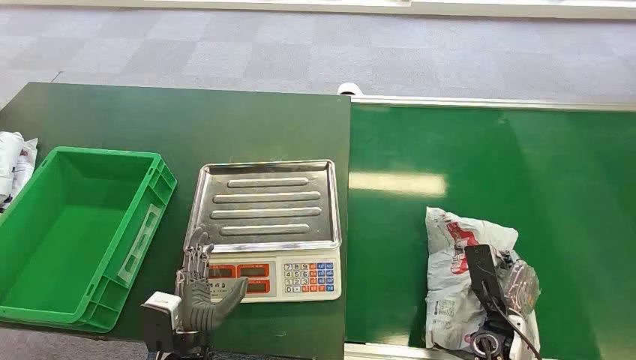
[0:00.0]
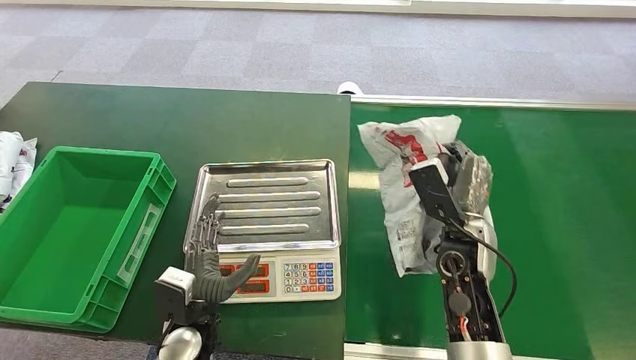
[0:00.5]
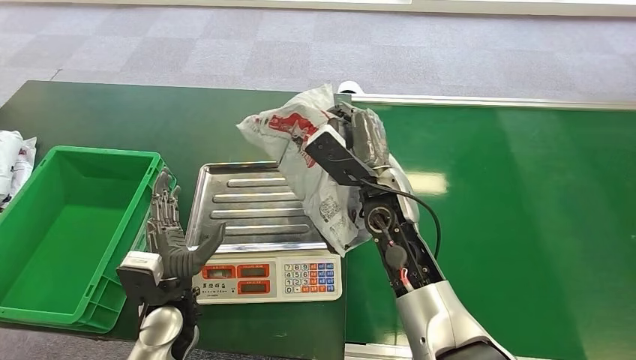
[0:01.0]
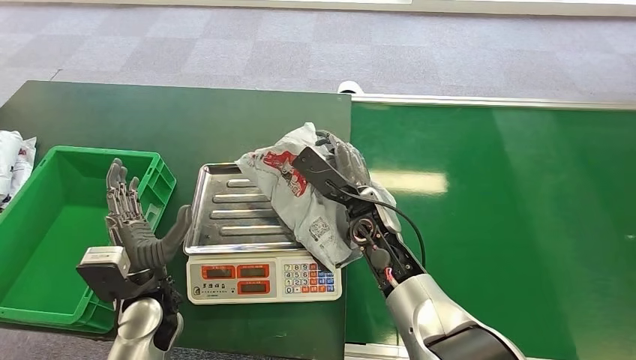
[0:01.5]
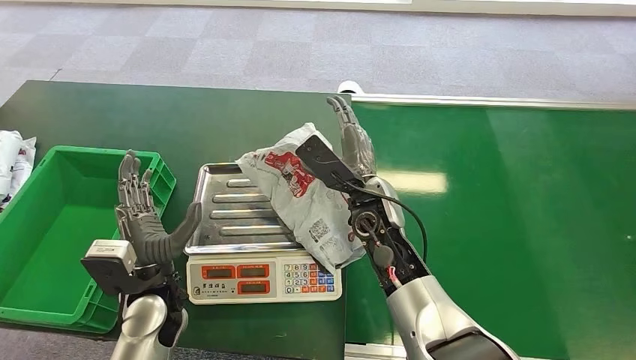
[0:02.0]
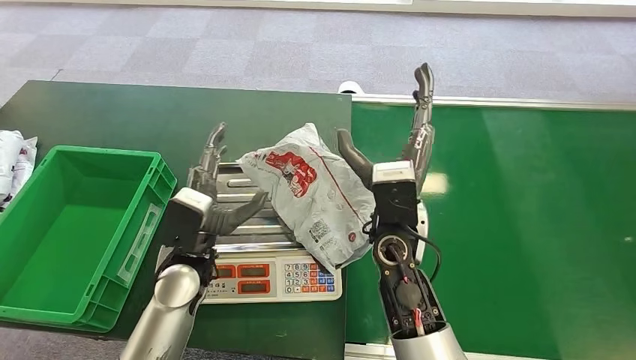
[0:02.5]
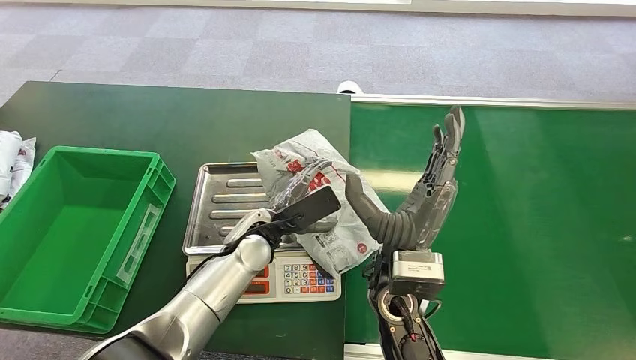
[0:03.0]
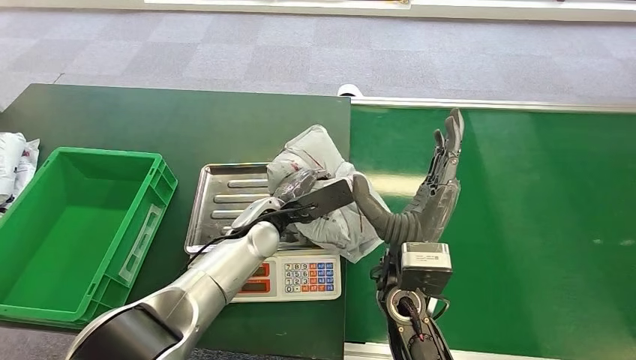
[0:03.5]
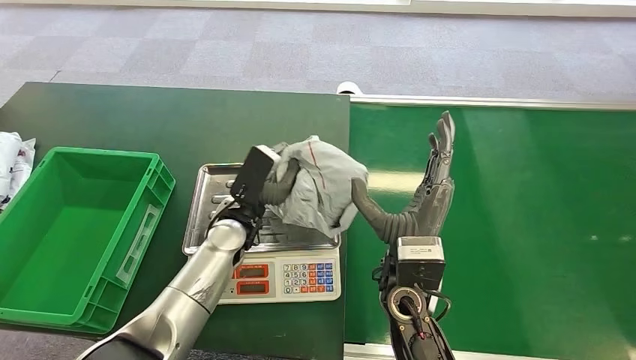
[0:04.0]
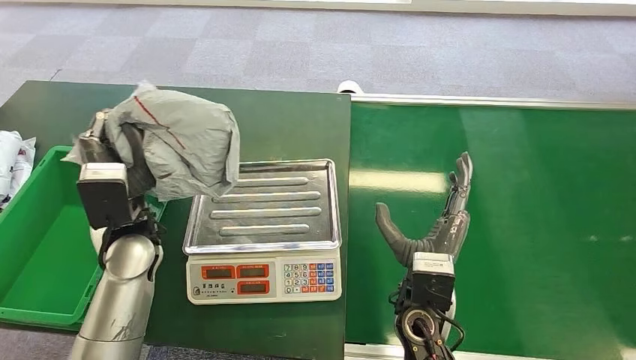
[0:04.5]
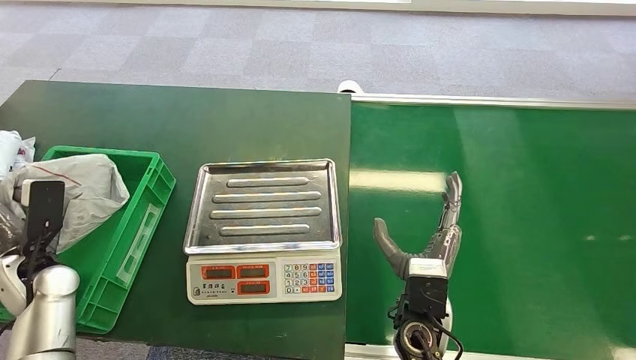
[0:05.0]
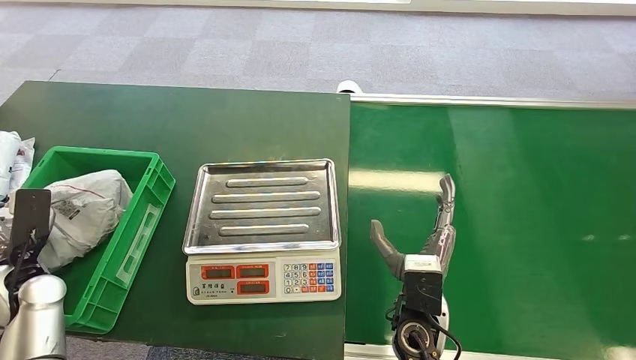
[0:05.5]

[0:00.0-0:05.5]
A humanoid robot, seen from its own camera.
Step, 0:00.0 to 0:00.5: Pick up the package from the conveyor belt.
Step, 0:01.0 to 0:01.5: Place the package onto the inbound machine.
Step, 0:05.0 to 0:05.5: Place the package into the parcel locker.
